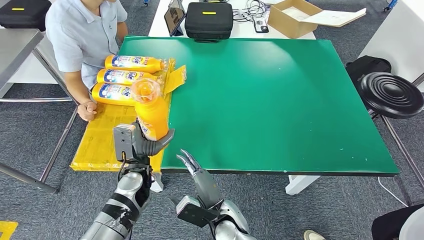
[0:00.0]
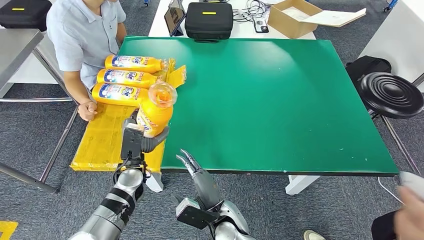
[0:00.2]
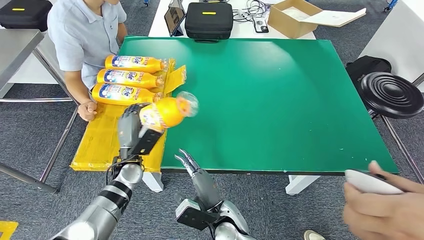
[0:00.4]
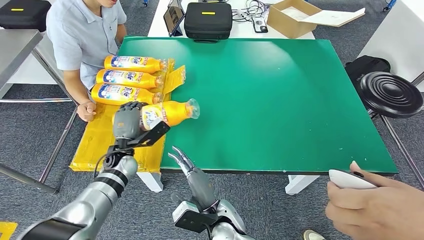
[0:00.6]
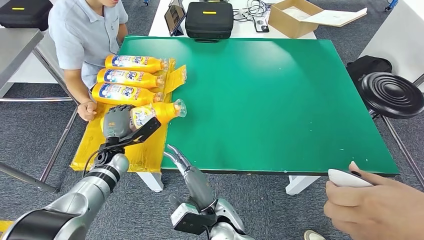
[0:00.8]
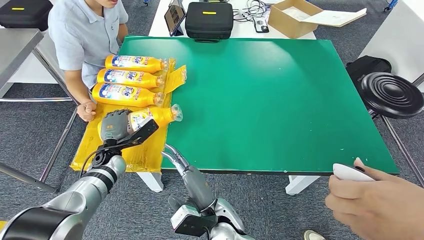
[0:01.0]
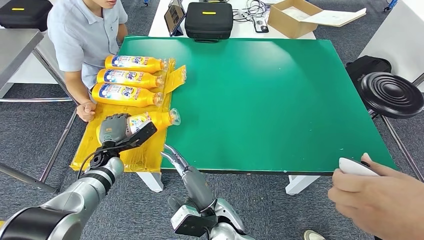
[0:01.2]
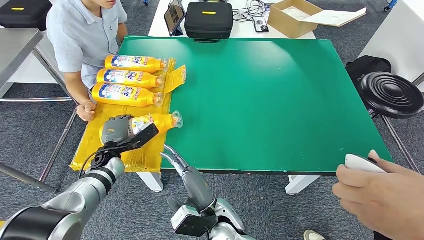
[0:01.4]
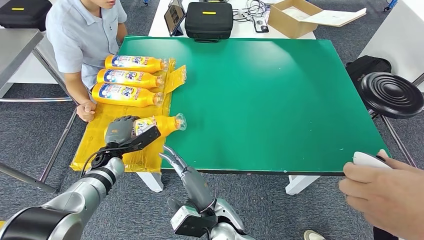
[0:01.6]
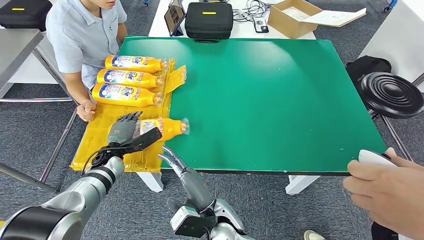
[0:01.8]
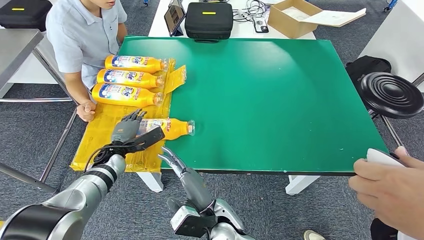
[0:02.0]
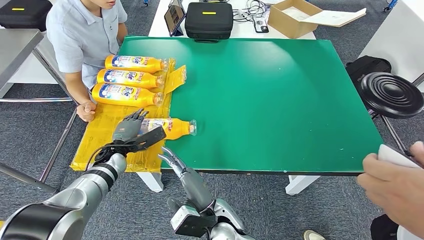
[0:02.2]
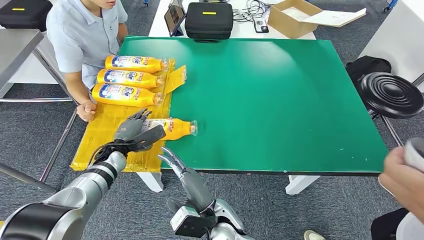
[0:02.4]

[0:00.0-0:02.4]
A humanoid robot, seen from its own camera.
Step, 0:00.0 to 0:02.2: Flip the fast-moving consumer goods bottle to the front side.
0:00.0 to 0:01.2: The left hand travels to the left and forward by approximately 15 cm.
